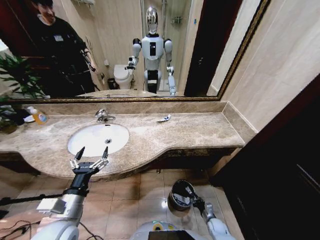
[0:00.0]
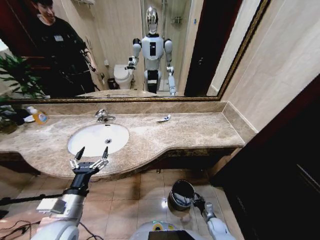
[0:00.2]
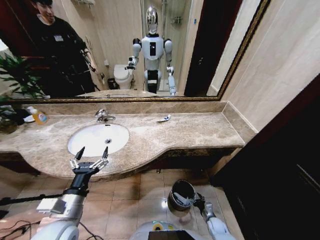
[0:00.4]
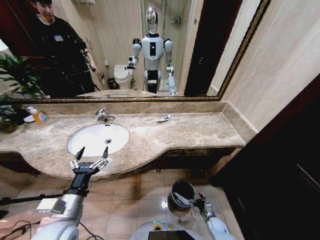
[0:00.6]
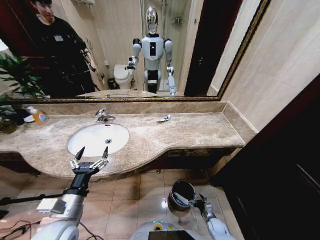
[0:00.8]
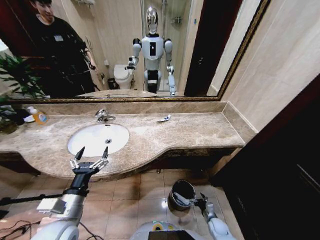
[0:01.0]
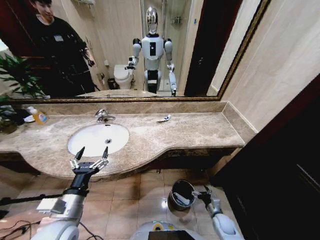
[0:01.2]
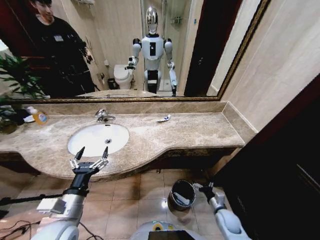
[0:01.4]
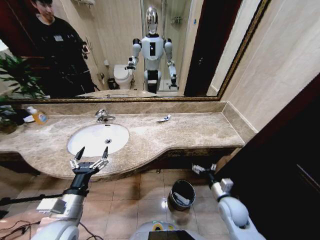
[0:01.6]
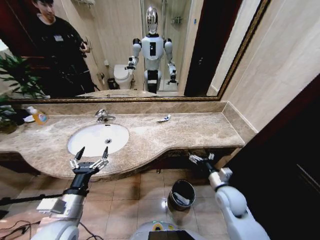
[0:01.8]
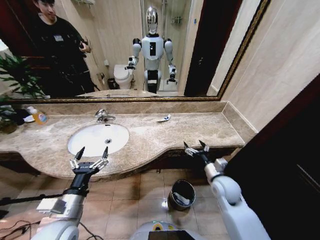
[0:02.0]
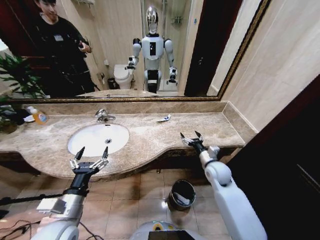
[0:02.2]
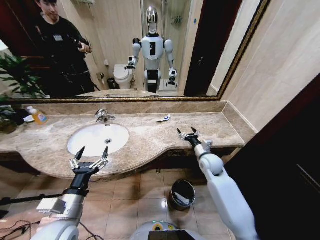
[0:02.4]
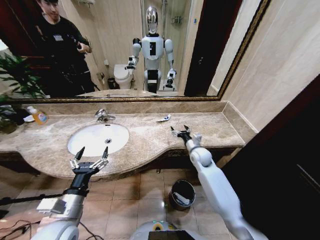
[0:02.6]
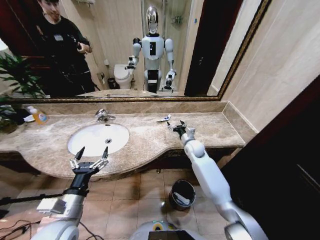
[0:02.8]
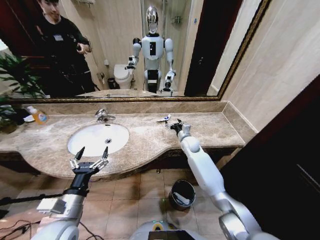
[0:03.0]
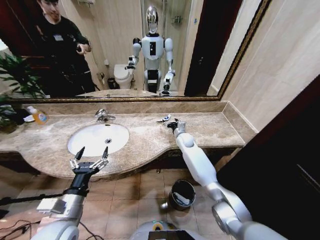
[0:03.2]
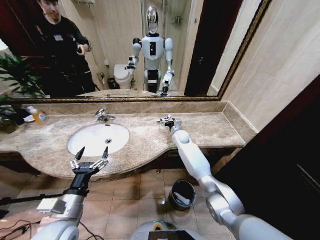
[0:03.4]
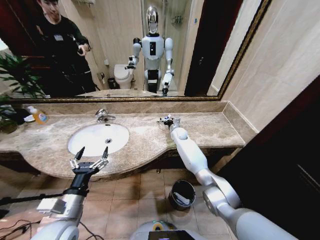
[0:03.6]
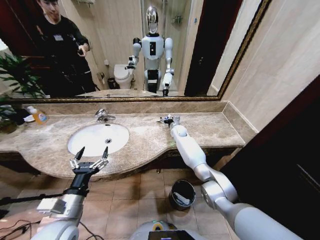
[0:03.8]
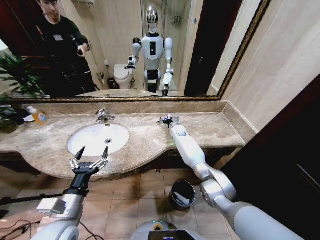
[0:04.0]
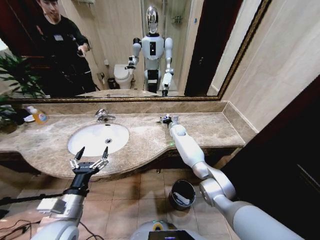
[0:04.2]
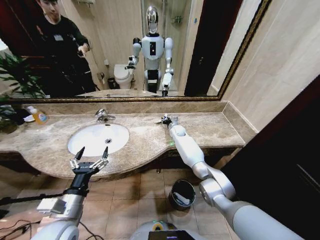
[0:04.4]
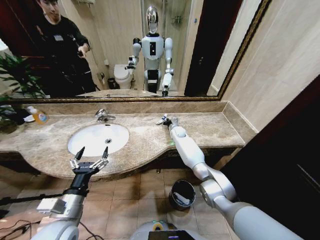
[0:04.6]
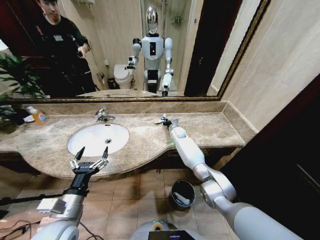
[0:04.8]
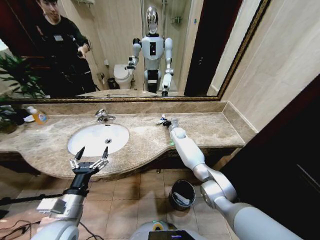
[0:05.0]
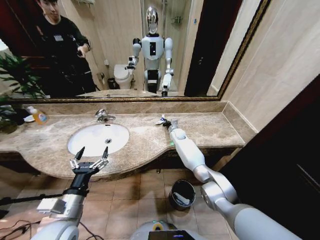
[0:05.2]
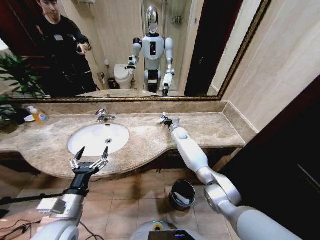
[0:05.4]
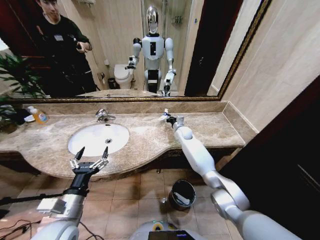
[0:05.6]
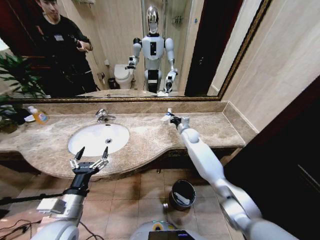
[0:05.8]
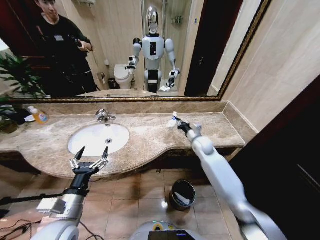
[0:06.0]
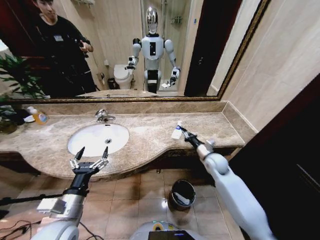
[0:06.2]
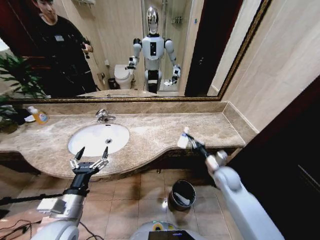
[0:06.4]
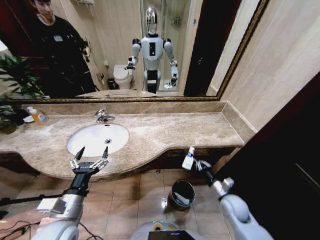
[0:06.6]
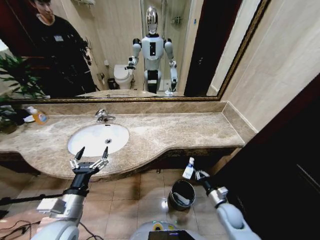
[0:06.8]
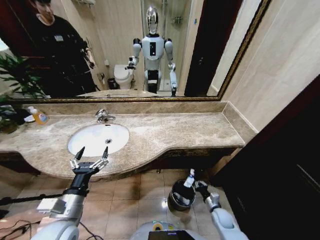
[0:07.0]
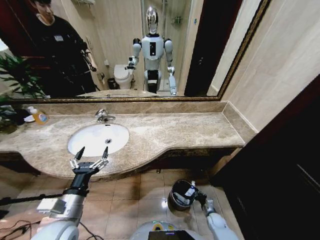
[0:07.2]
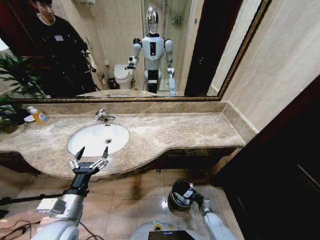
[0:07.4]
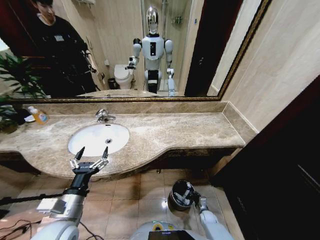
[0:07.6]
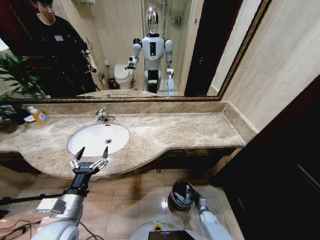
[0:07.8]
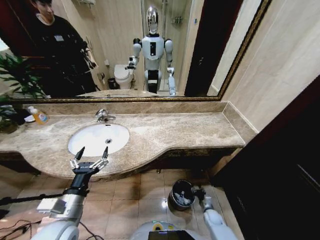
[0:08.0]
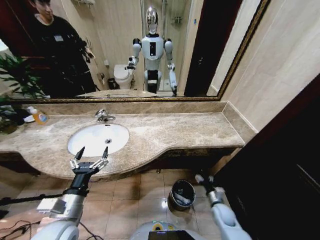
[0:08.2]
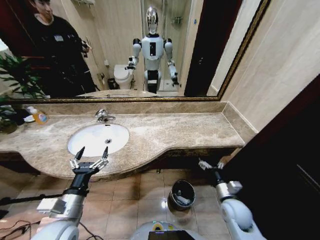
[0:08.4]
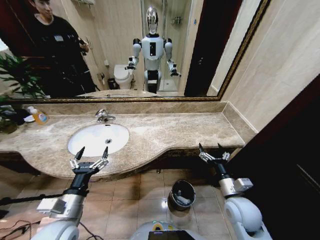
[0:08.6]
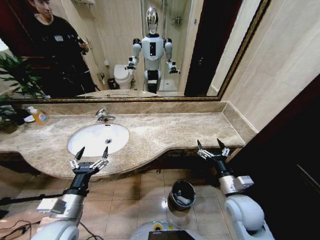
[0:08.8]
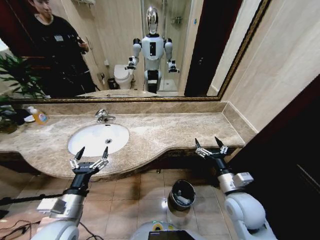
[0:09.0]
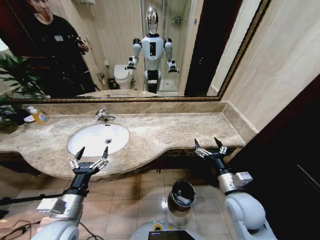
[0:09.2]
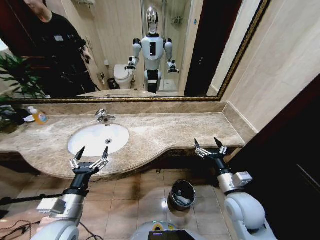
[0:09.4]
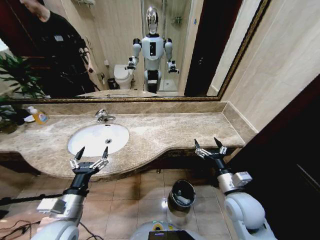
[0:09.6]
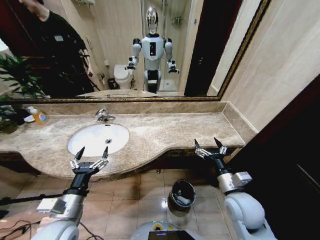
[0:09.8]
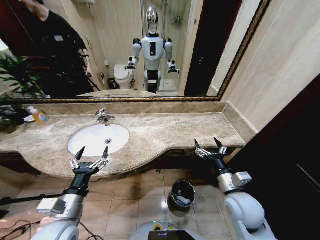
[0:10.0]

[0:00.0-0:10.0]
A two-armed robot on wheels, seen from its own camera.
Task of the whole recording: Pick up the trash from the sink and place it in the trash bin.
0:00.0 to 0:01.4: The right gripper moves upward, roughly 15 cm, and opens up.
0:01.4 to 0:02.8: The right gripper moves forward, upward and to the left, roughly 35 cm.
0:02.8 to 0:04.2: The right gripper is displaced forward and to the left by roughly 15 cm.
0:04.2 to 0:05.8: The right gripper shifts about 10 cm backward and to the right, and closes its fingers.
0:05.8 to 0:07.2: The right gripper heads downward and backward, covering approximately 50 cm.
0:07.2 to 0:08.6: The right gripper heads upward, covering approximately 35 cm, and opens up.
0:08.6 to 0:10.0: The grippers stay close to where they were, moving slightly.
